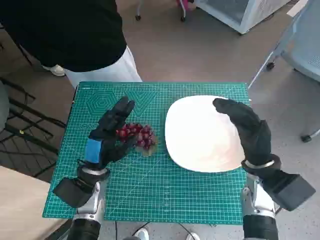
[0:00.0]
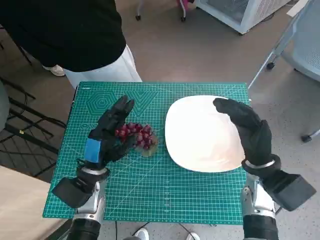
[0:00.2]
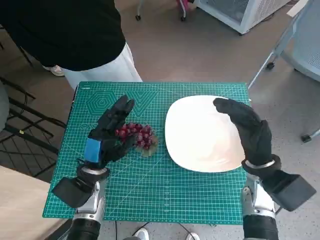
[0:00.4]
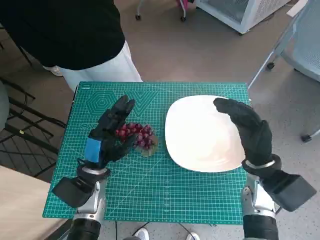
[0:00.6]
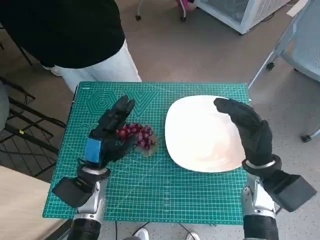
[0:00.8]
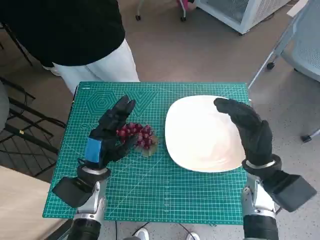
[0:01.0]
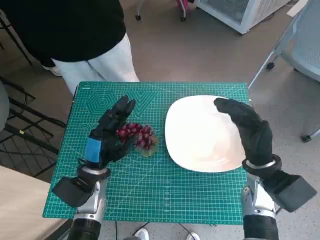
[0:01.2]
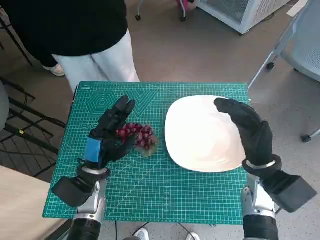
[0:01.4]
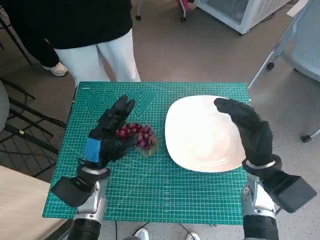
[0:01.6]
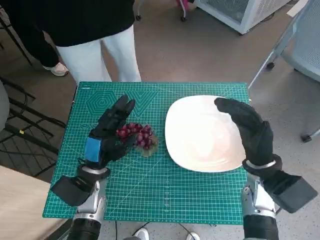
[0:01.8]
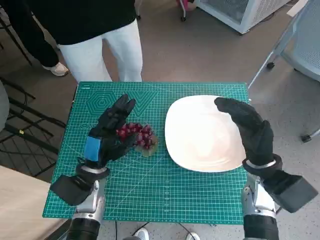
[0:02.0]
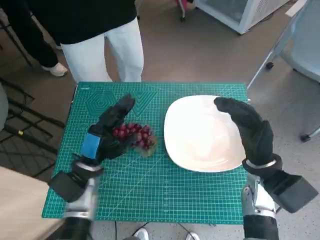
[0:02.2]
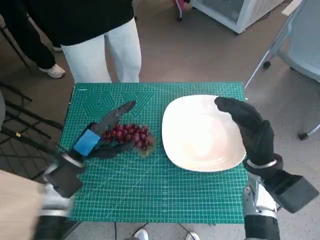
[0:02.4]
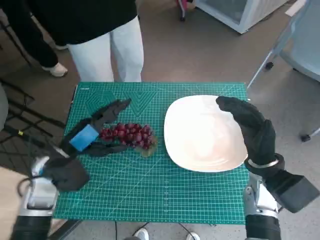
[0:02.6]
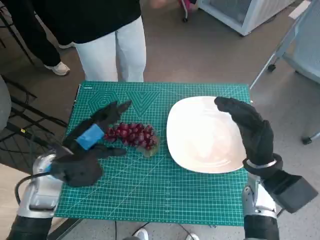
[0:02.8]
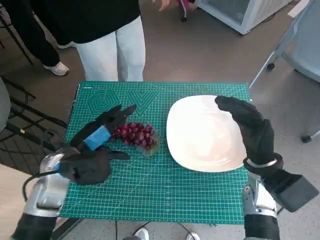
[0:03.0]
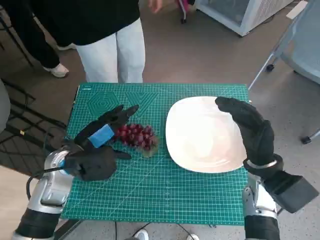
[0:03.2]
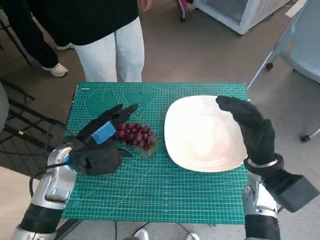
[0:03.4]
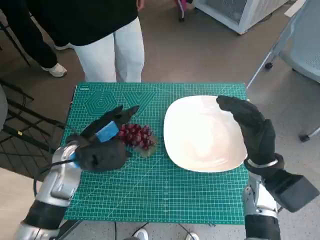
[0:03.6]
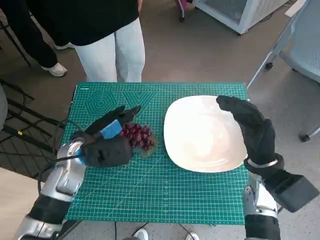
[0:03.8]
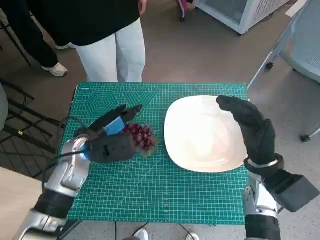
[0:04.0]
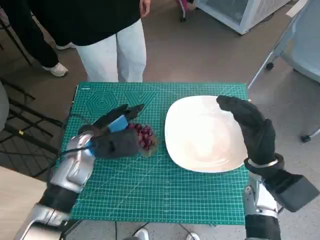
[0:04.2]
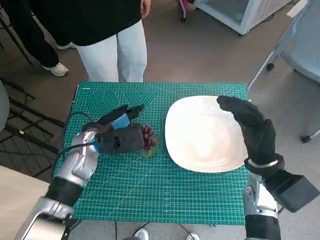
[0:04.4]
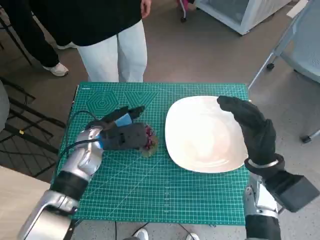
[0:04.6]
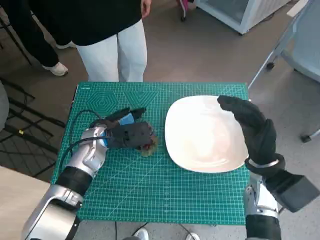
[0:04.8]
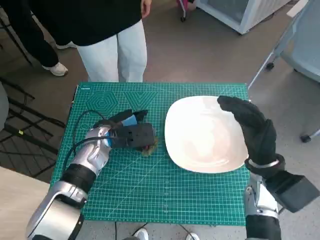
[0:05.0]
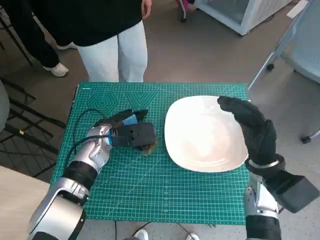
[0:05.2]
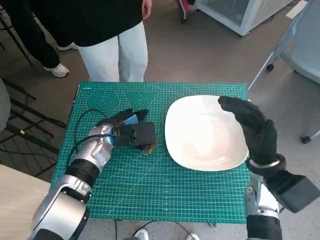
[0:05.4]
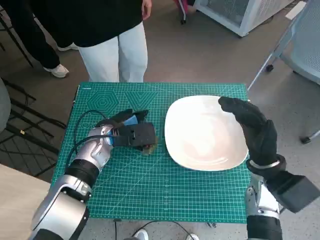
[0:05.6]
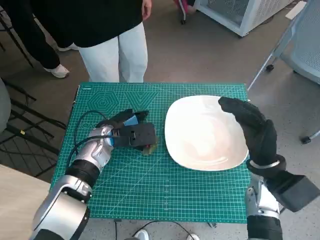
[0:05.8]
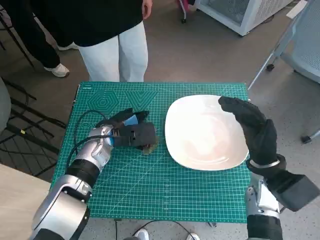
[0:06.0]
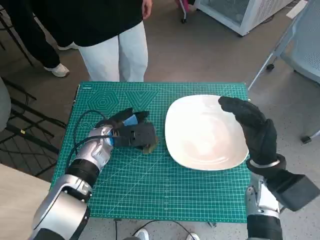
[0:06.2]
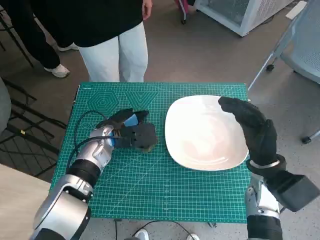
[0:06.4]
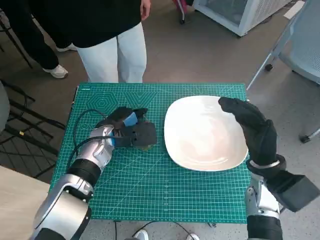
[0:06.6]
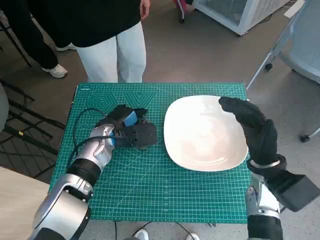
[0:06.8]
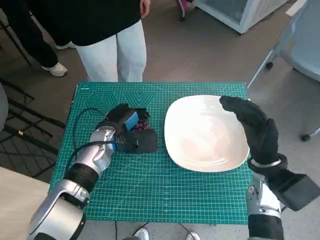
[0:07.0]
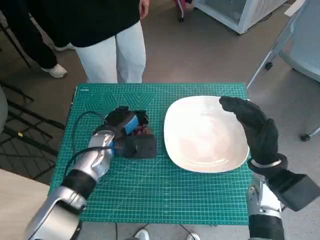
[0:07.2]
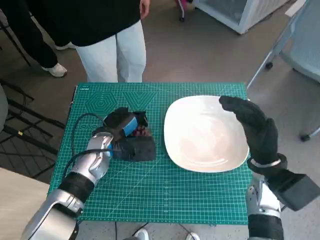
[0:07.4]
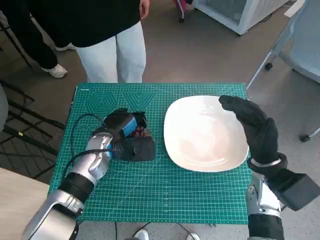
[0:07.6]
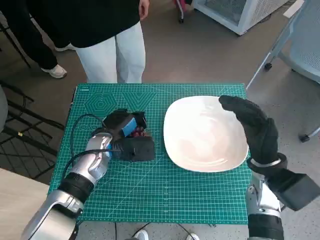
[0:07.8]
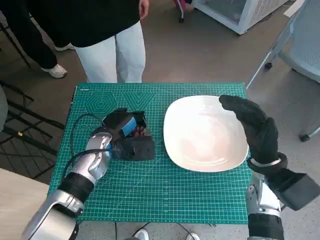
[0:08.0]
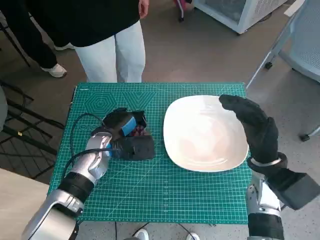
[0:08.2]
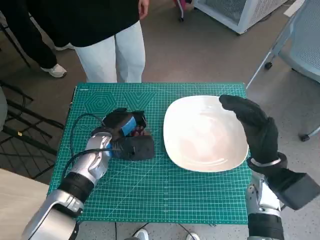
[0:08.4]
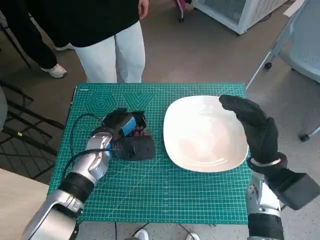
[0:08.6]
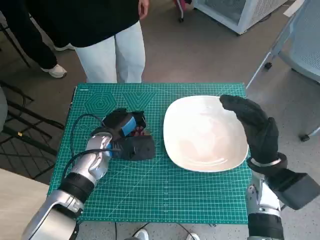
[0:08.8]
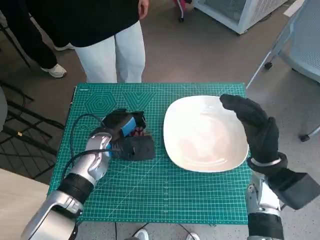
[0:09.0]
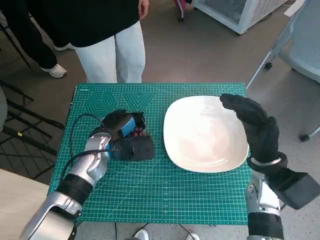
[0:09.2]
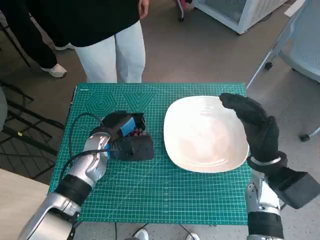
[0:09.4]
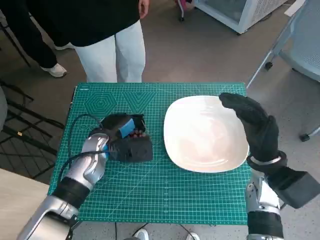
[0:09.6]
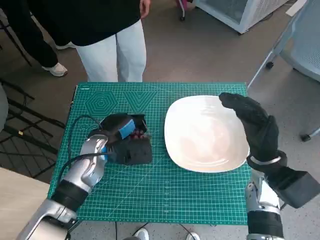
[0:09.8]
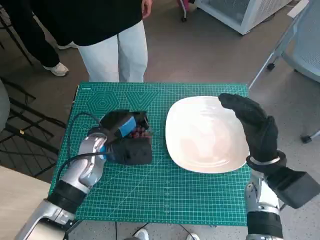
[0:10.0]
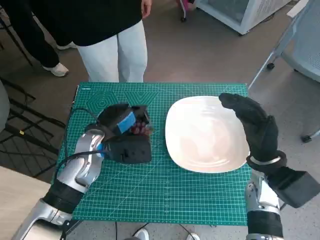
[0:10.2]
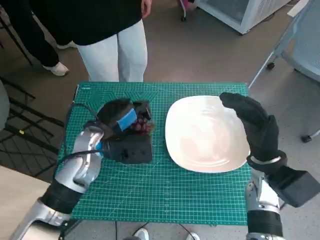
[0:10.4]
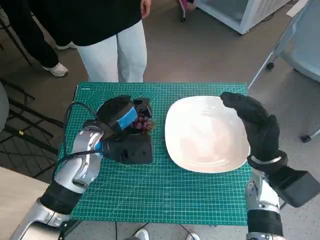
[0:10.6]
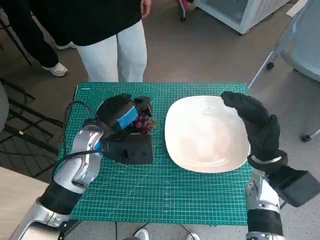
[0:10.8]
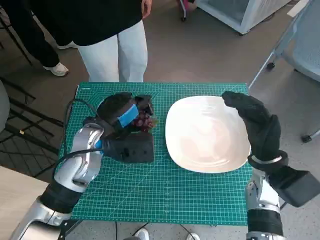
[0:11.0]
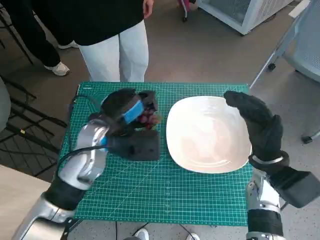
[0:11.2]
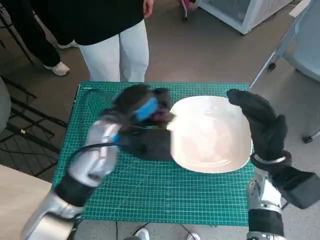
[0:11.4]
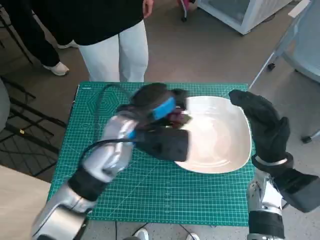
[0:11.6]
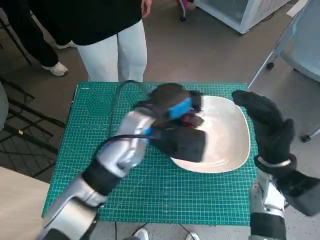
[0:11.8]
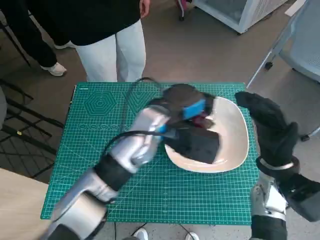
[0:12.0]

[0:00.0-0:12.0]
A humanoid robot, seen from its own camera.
Task of the whole recording: Pick up the grapes and put them on the plate.
Step, 0:00.0 to 0:07.2: Grasp the grapes with left hand.
0:01.6 to 0:03.0: The left hand travels upward by about 10 cm.
0:03.0 to 0:04.4: The left hand moves forward, about 5 cm.
0:04.4 to 0:07.6: The hands move only a little.
0:07.6 to 0:09.0: Neither hand changes place.
0:09.0 to 0:10.4: The left hand moves upward, roughly 5 cm.
0:10.4 to 0:12.0: The left hand is displaced to the right by approximately 10 cm.

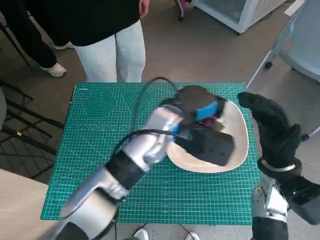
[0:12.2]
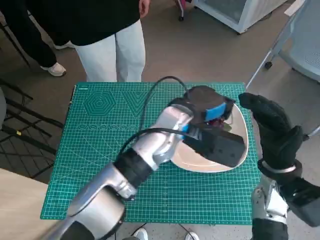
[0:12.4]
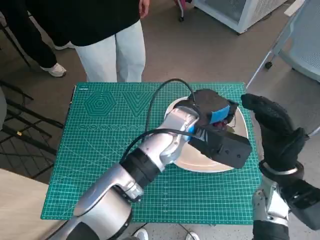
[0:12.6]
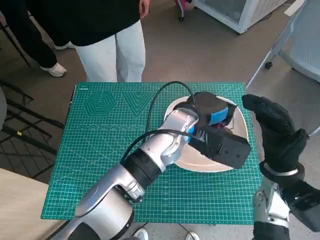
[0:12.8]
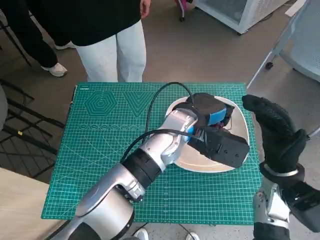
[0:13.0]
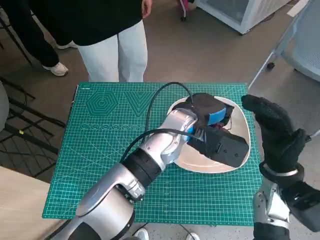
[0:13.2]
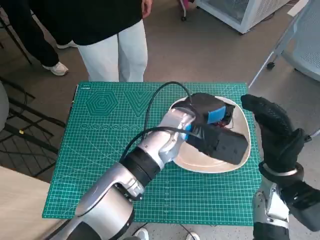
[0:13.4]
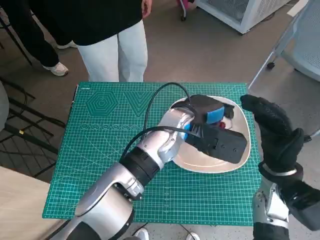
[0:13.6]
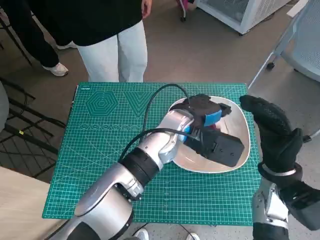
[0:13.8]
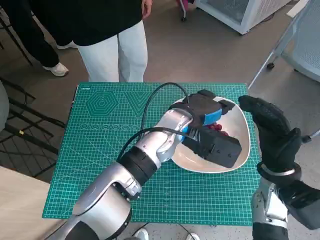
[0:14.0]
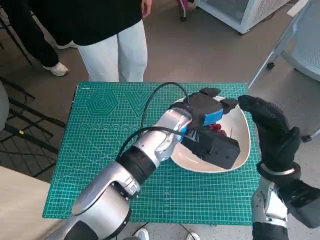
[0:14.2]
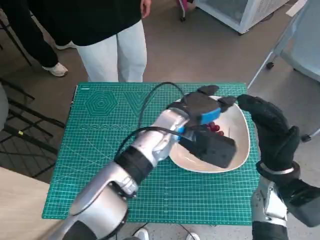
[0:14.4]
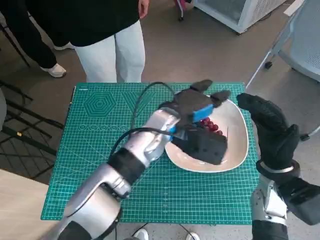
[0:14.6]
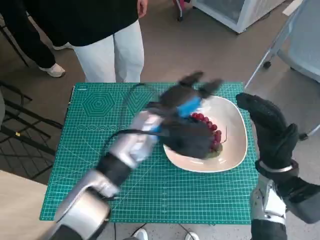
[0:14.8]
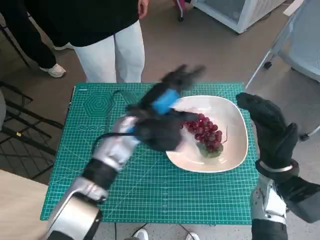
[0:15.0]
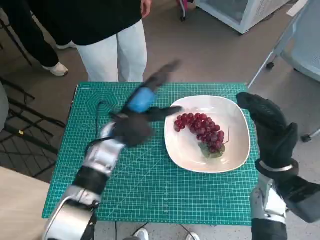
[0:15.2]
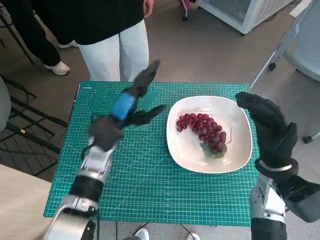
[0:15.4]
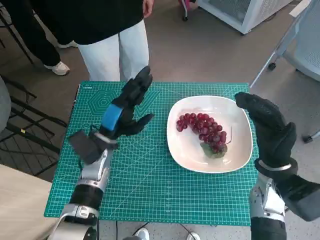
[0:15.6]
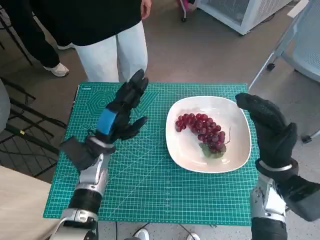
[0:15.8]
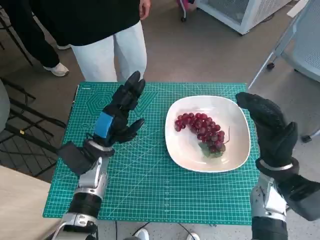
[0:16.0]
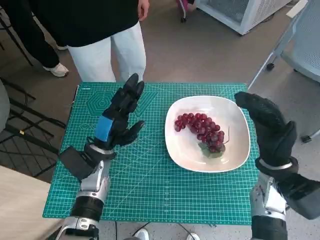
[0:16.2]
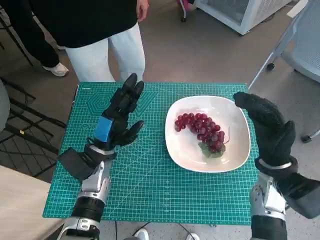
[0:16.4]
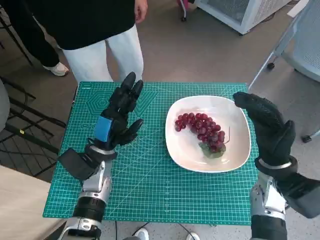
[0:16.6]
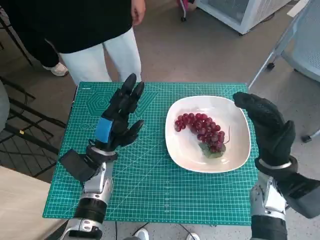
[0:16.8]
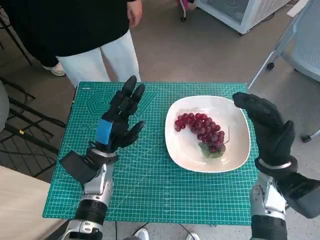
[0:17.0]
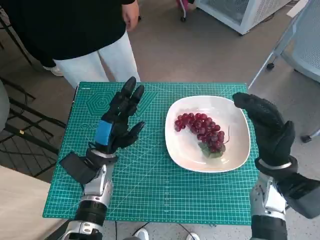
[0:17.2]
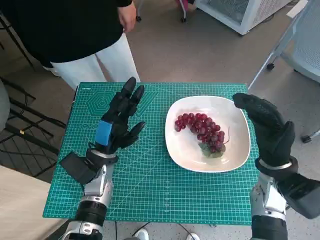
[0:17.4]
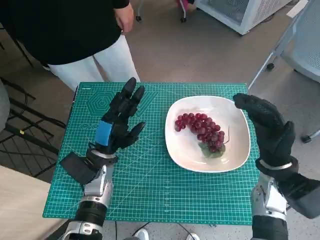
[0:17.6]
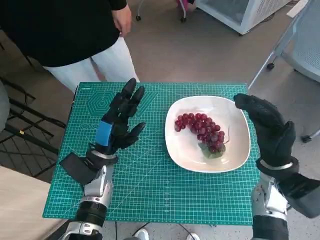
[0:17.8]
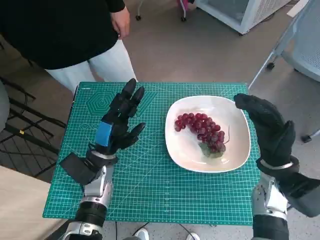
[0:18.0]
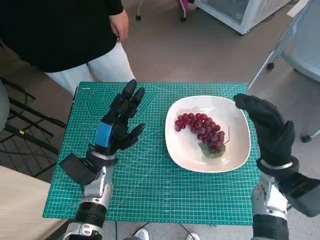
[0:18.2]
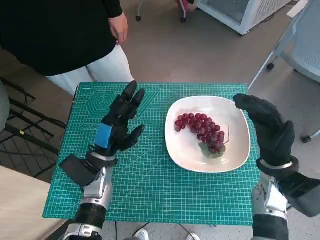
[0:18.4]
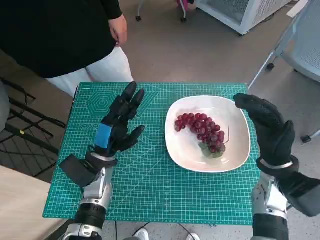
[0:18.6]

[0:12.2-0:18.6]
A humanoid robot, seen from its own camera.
Task of the whole recording: Pick up the grapes and put them on the plate.
0:13.8 to 0:15.4: The left hand travels to the left by approximately 15 cm.
0:15.4 to 0:17.0: The left hand shifts by about 5 cm.
0:17.0 to 0:18.6: The two hands keep their place.

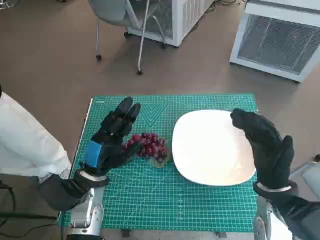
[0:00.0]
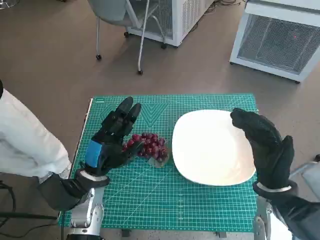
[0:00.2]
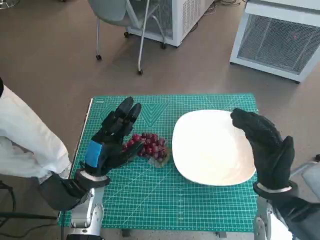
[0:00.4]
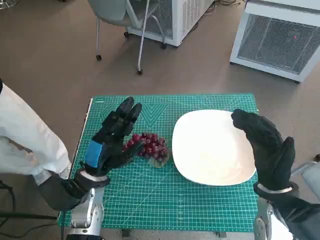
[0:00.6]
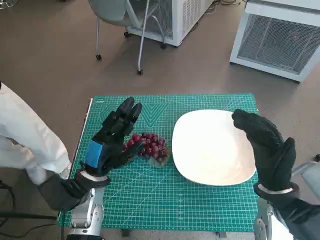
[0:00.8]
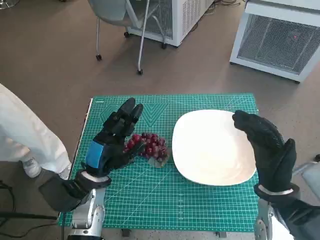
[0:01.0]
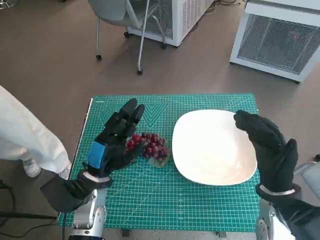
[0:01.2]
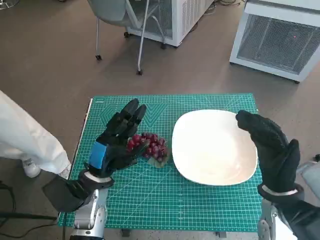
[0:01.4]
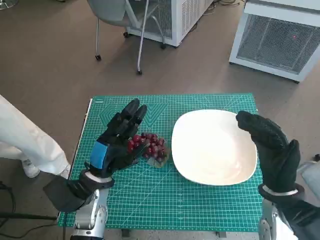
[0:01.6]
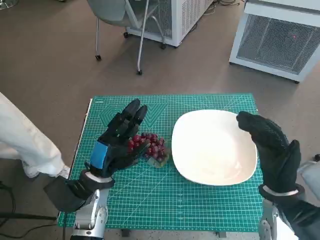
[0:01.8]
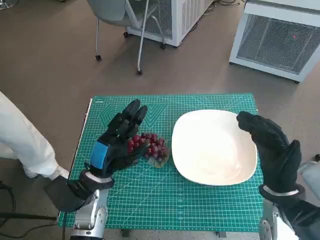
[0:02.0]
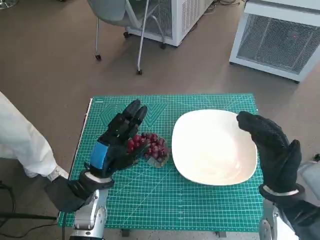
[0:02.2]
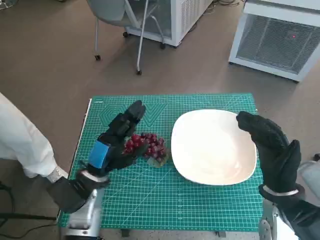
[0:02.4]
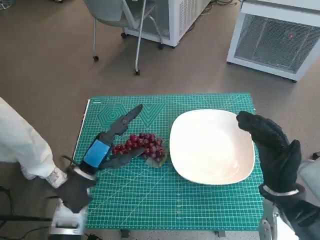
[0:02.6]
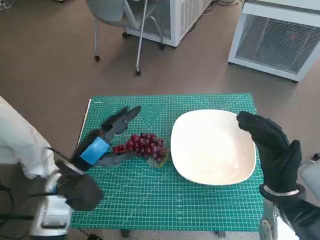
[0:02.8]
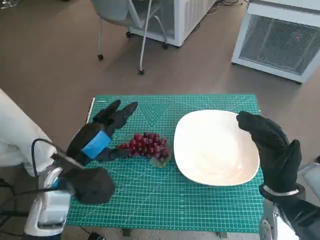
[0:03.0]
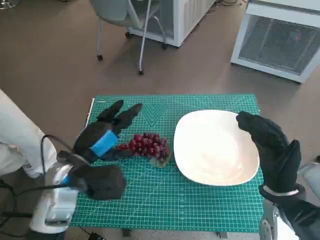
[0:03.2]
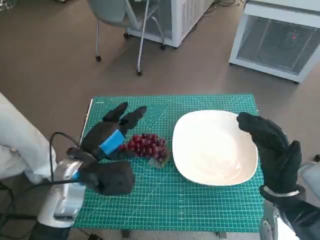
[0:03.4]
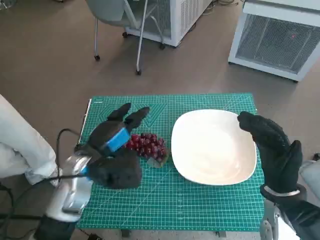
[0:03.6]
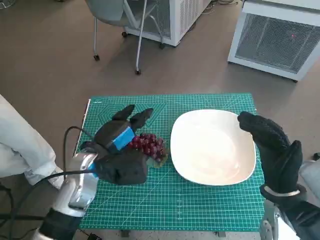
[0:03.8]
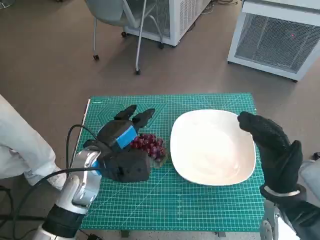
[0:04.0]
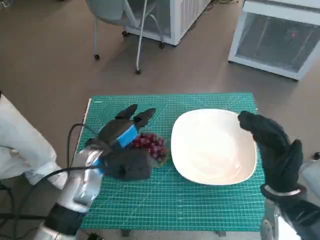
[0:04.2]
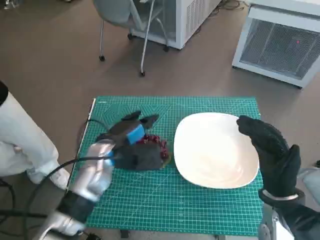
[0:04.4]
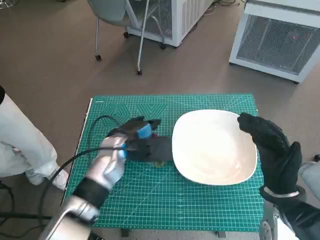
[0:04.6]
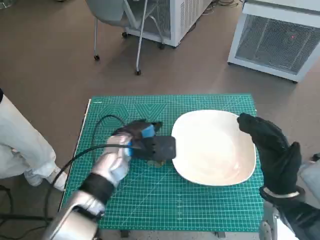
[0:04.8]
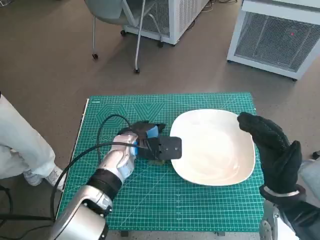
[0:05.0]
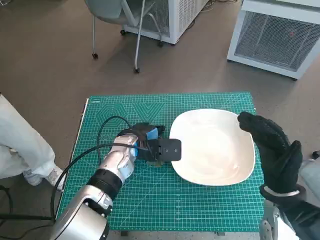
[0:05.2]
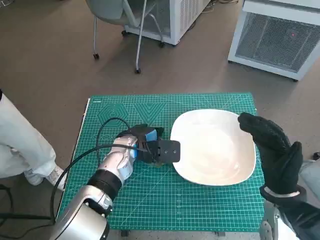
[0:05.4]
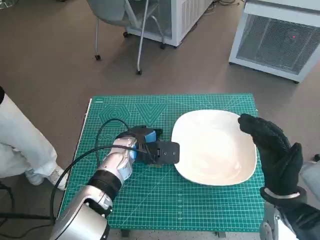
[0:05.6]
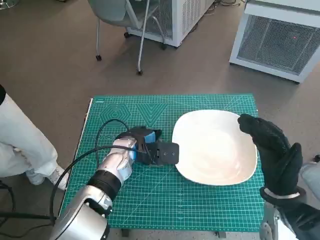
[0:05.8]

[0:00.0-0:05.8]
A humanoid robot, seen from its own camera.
Task of the whole recording: Pick up the grapes and put them on the plate.
0:01.4 to 0:02.8: The left hand changes place by roughly 5 cm.
0:02.8 to 0:04.4: The left hand heads forward and to the right, covering about 10 cm.
0:04.4 to 0:05.8: The left hand ends up roughly 5 cm from where it was.
